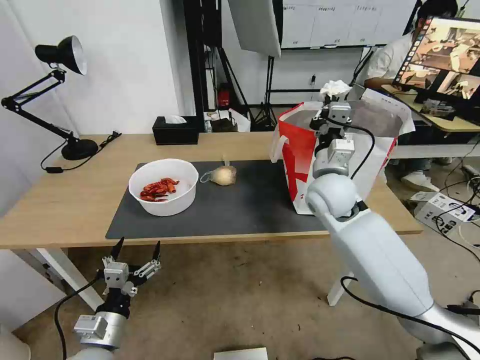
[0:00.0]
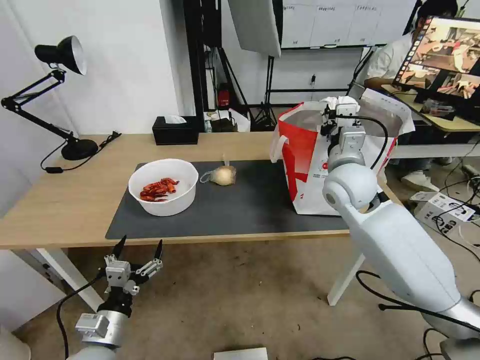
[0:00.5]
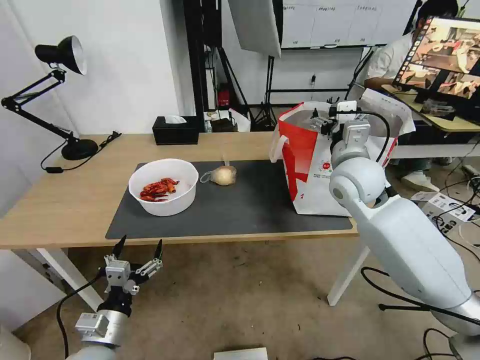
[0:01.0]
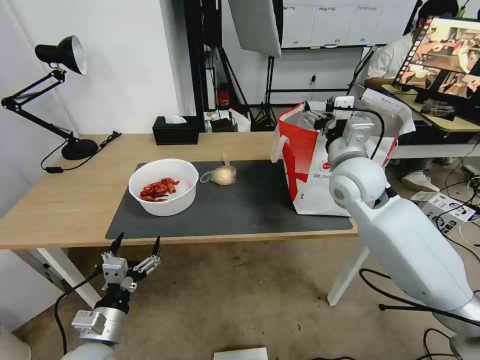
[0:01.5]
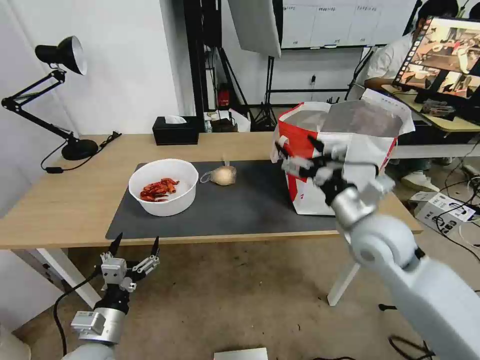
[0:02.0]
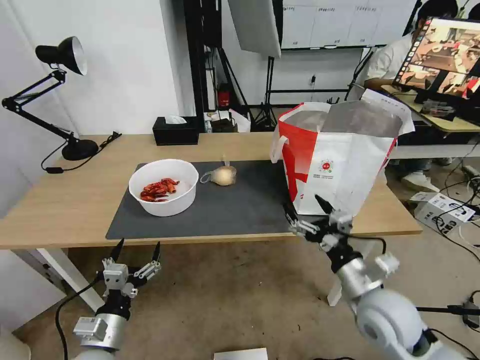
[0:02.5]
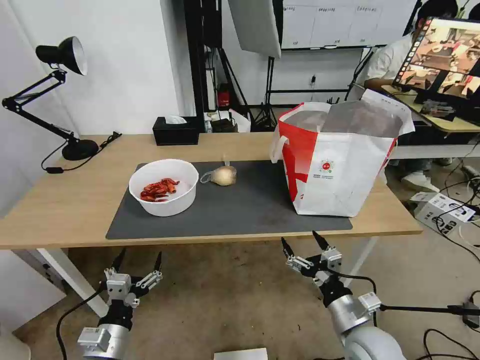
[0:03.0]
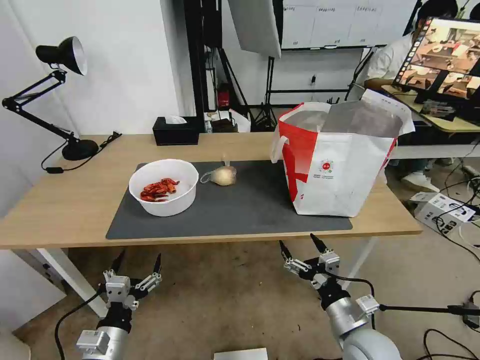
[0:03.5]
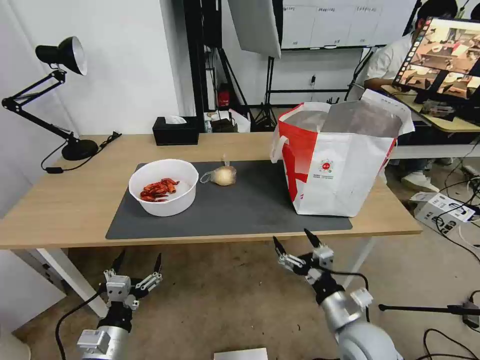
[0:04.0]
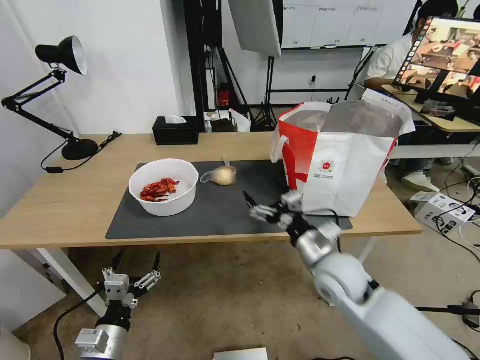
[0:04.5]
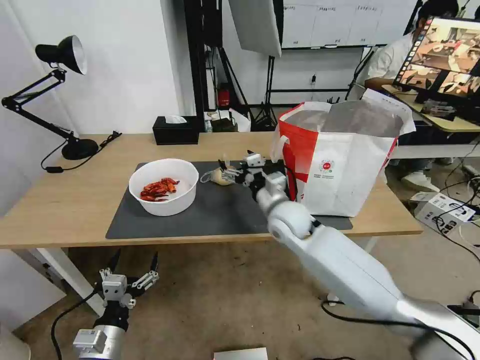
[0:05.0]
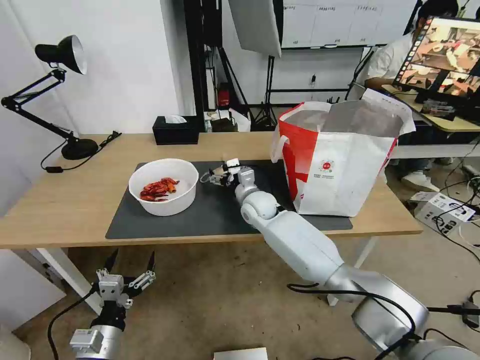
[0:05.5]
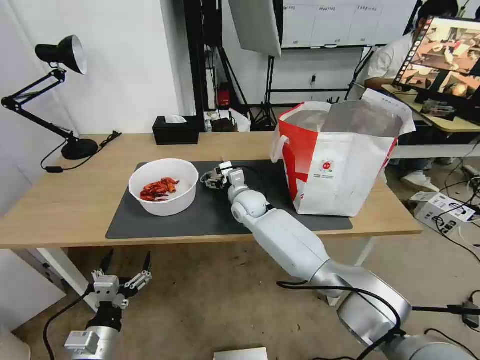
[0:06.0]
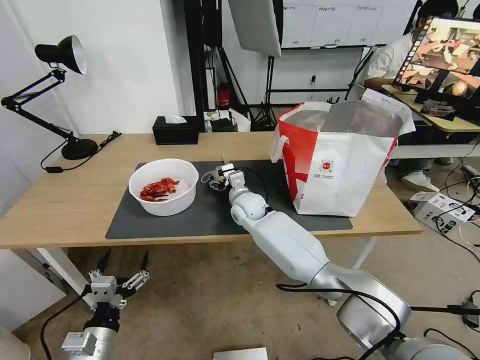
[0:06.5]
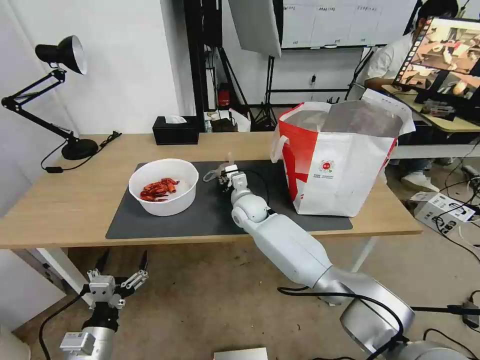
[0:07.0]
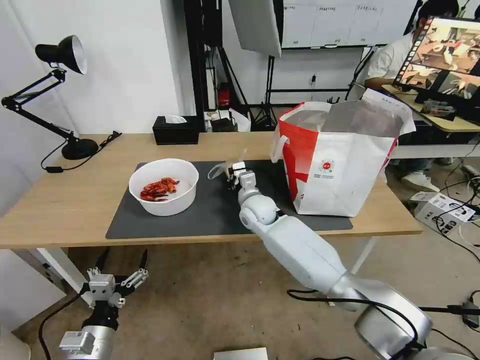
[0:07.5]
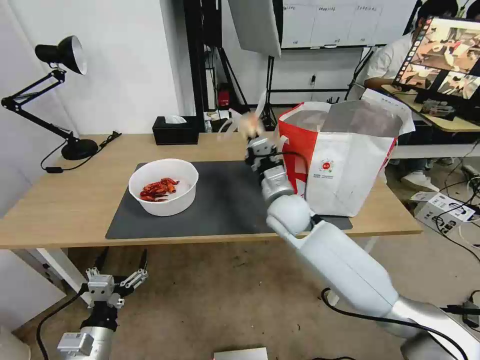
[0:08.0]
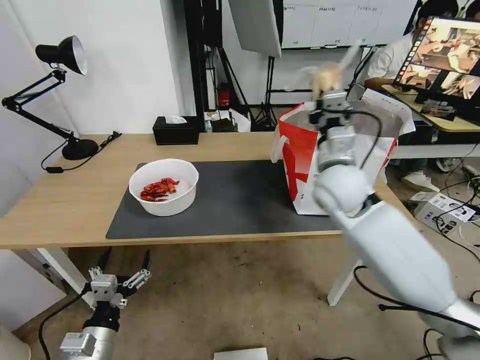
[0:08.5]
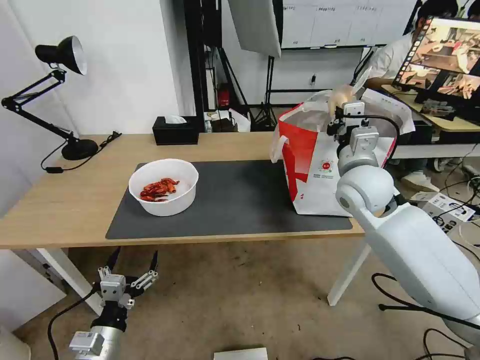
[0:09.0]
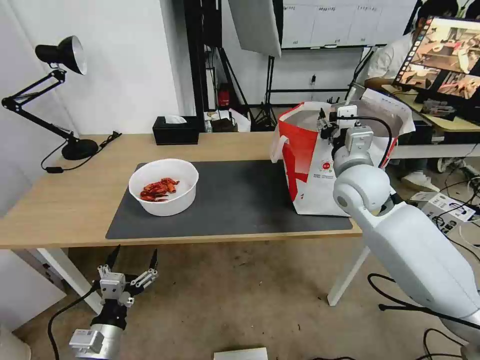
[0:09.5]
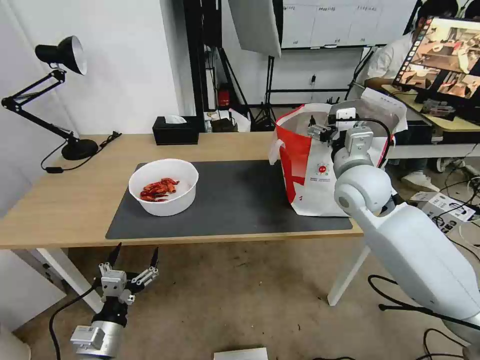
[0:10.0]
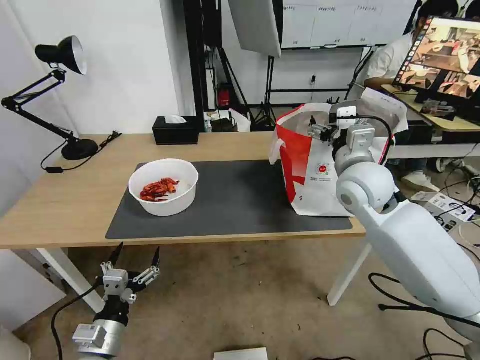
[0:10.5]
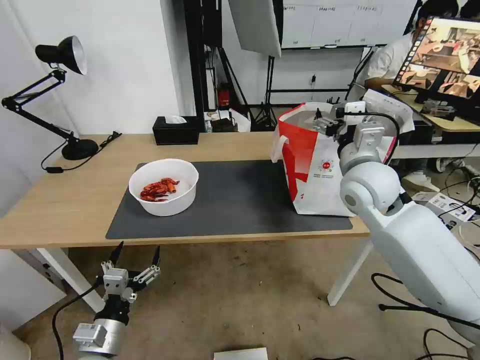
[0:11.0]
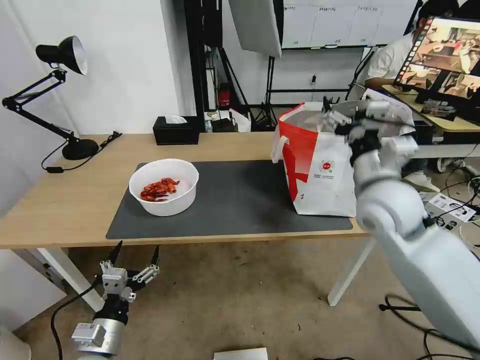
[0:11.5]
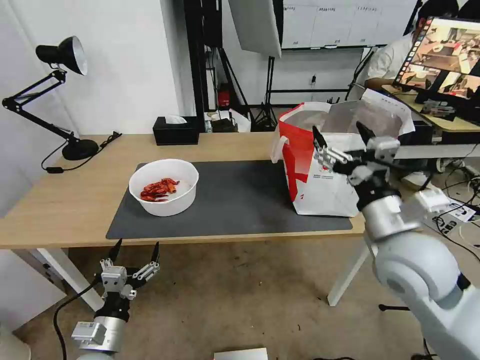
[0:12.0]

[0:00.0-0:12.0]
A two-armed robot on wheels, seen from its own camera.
Task of the whole recording: Pick up the trash from the table and place it into the takeout bag.
0:00.0 to 0:02.0: The right gripper shifts approximately 15 cm backward and to the right, and opens.
0:02.0 to 0:04.0: The right gripper is displaced downward and backward by about 25 cm.
0:04.0 to 0:06.0: The right gripper moves forward and to the left, about 40 cm.
0:06.0 to 0:08.0: The right gripper shifts some 15 cm backward, to the right and upward, and closes up.
0:08.0 to 0:10.0: The right gripper heads to the right and upward, covering roughly 15 cm, and opens.
0:10.0 to 0:12.0: The right gripper heads backward, covering some 15 cm.

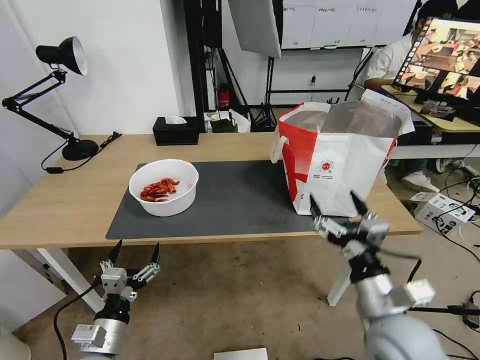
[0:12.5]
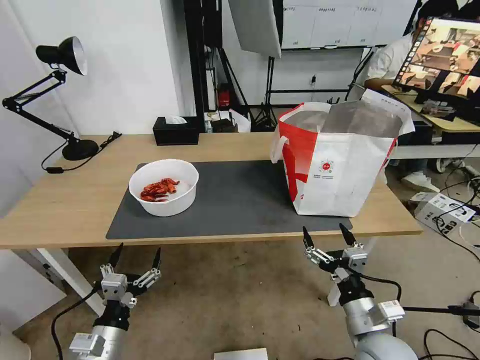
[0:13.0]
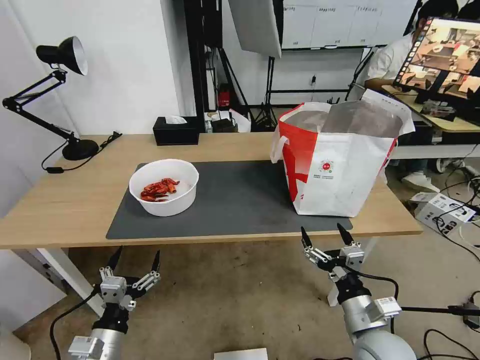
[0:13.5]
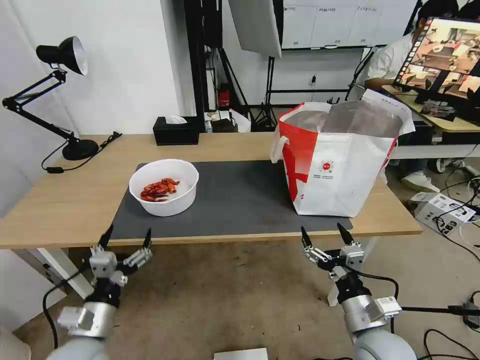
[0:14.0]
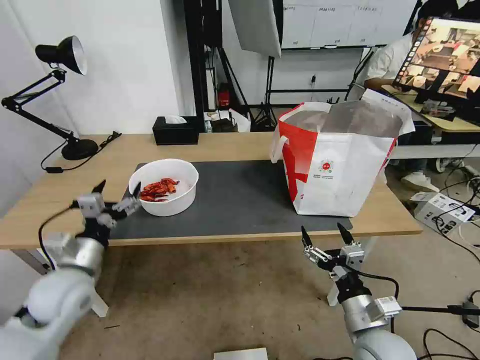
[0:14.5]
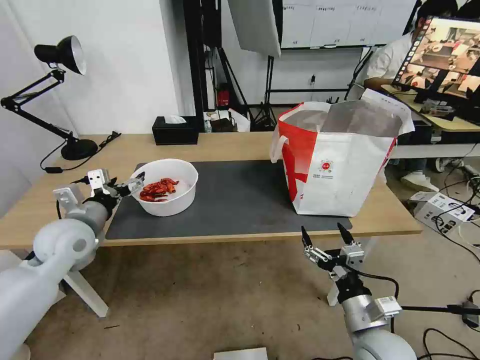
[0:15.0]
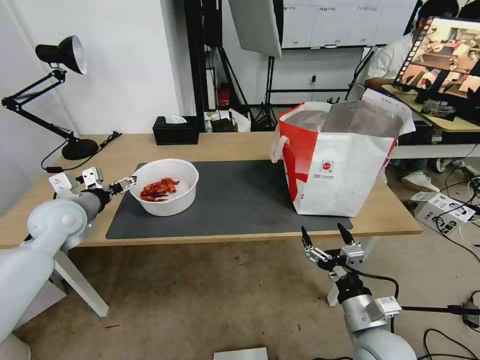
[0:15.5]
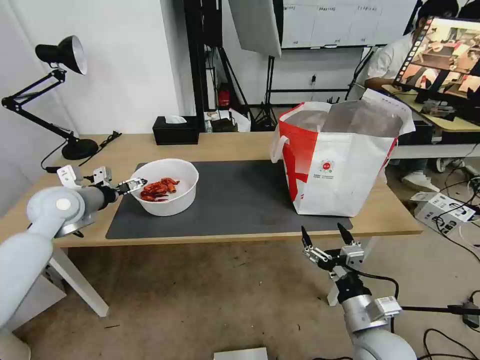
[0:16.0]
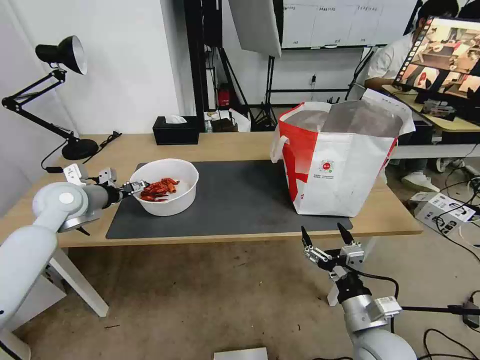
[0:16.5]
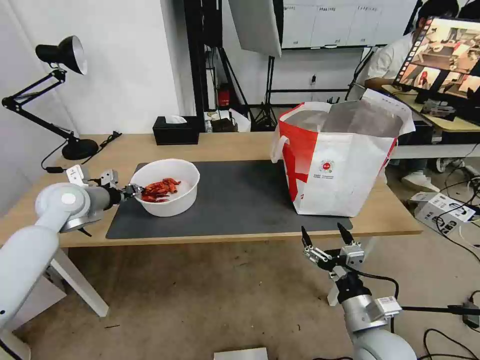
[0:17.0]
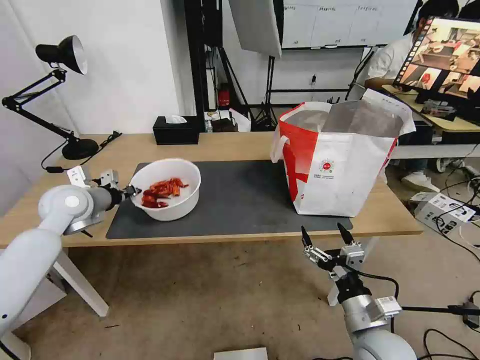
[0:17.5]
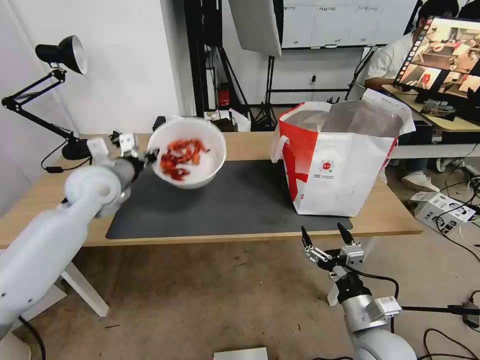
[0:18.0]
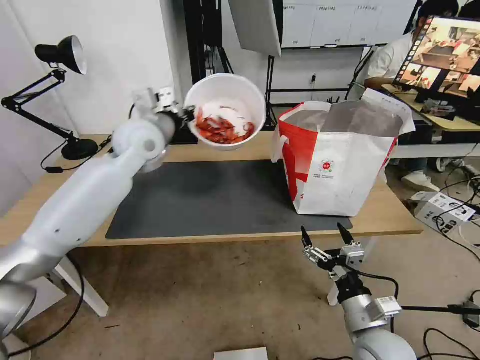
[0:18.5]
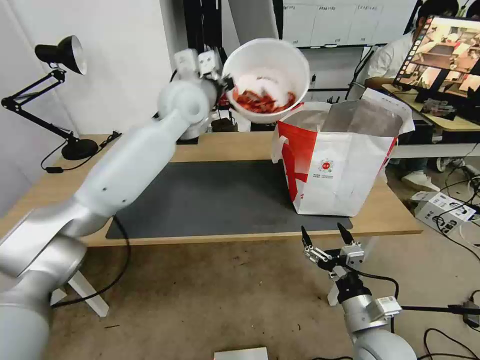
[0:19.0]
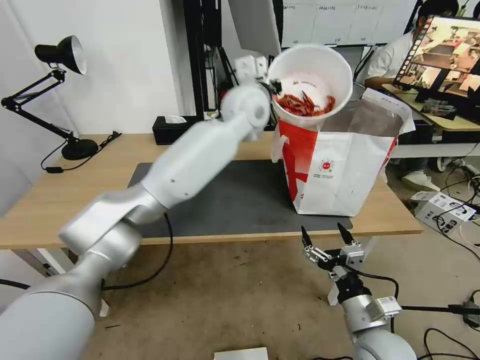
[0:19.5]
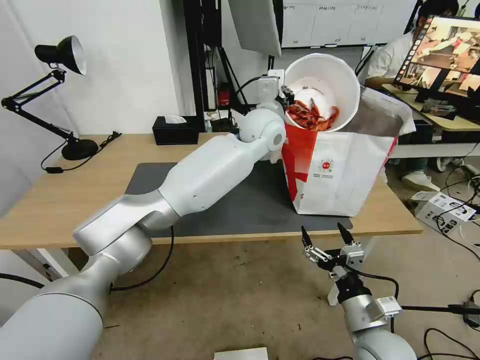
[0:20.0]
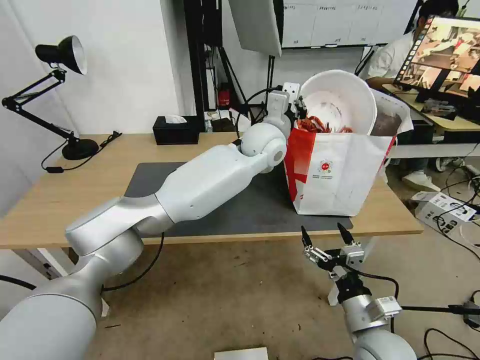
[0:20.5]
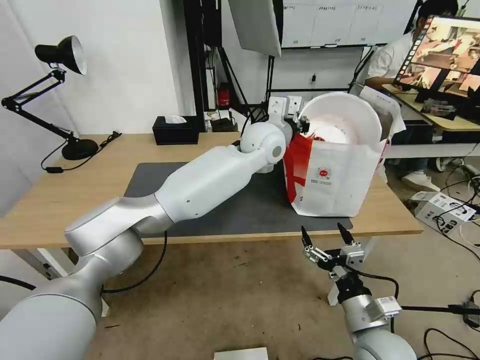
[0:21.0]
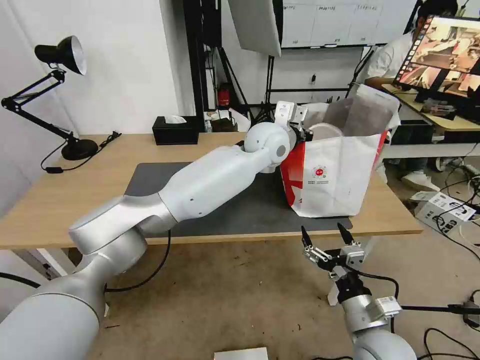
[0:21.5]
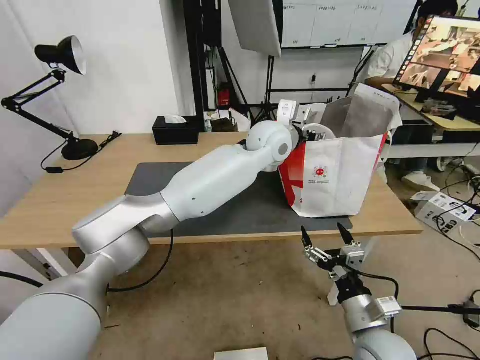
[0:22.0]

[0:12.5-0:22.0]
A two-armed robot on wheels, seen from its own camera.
Task of the whole recording: Pick up the trash from the table and place it into the takeout bag.
0:12.5 to 0:14.5: The right gripper shifts approximately 10 cm downward; the left gripper moves forward, upward and to the left, some 15 cm.
0:14.5 to 0:16.5: The left gripper shifts some 20 cm forward and upward.
0:16.5 to 0:18.0: The left gripper heads to the right, covering approximately 10 cm, and closes.
0:18.0 to 0:20.0: The left gripper is displaced to the right by approximately 35 cm.
0:20.0 to 0:22.0: The left gripper opens.

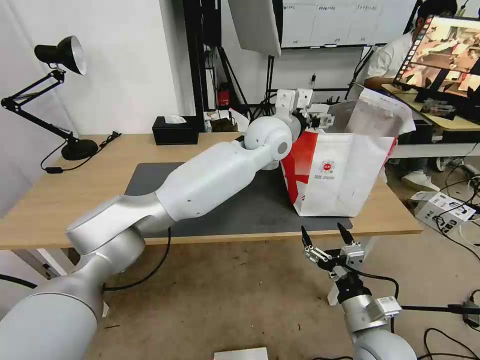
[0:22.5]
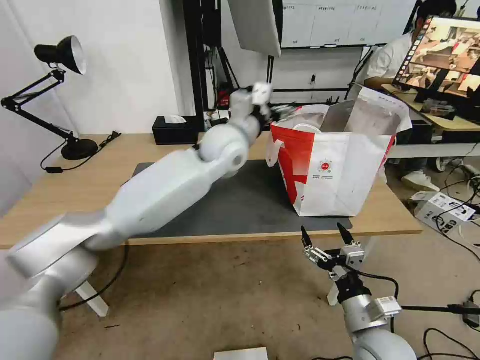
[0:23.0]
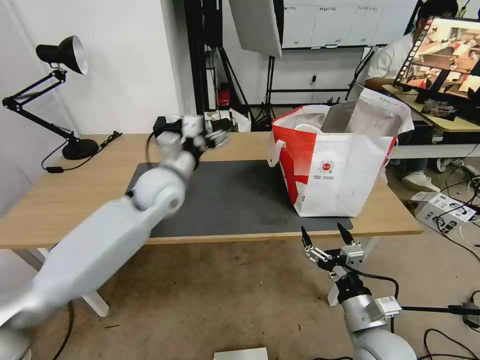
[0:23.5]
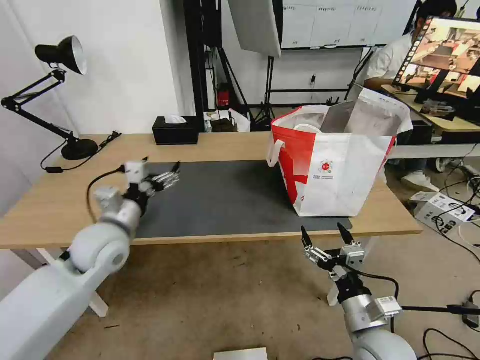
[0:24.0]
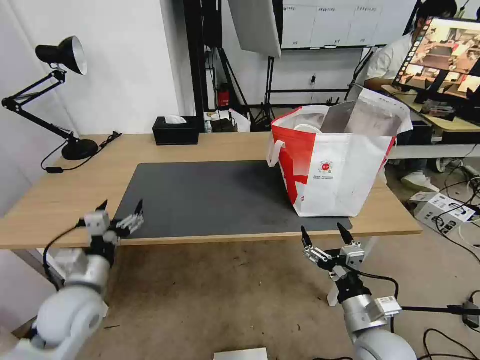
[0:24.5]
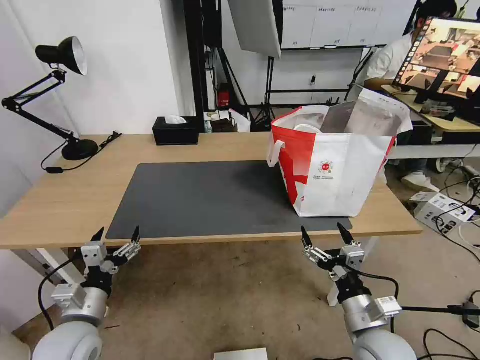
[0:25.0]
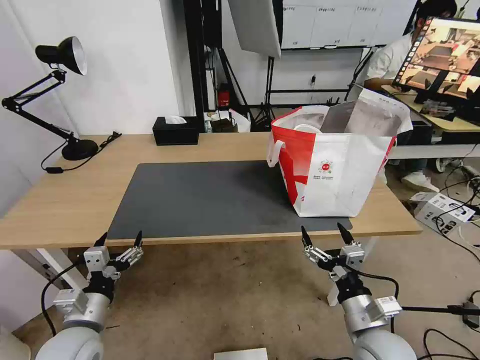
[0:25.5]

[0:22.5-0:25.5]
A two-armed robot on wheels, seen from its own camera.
Task of the whole recording: Pick up the trash from the table and place it into the takeout bag.
0:22.5 to 0:24.0: The left gripper moves to the left, backward and downward, some 40 cm.
0:24.0 to 0:25.5: The left gripper is displaced backward and downward by roughly 20 cm.

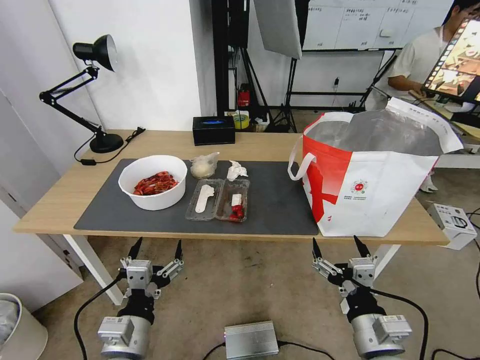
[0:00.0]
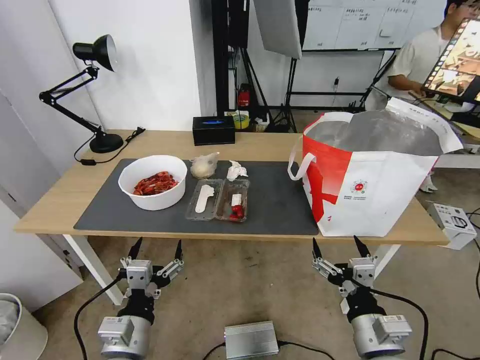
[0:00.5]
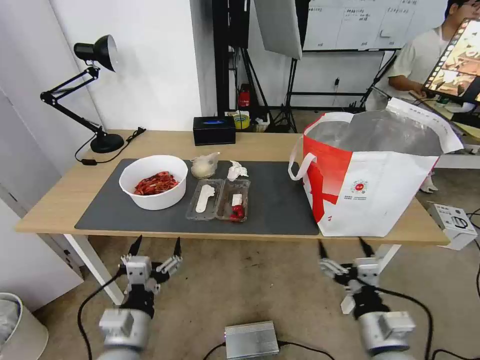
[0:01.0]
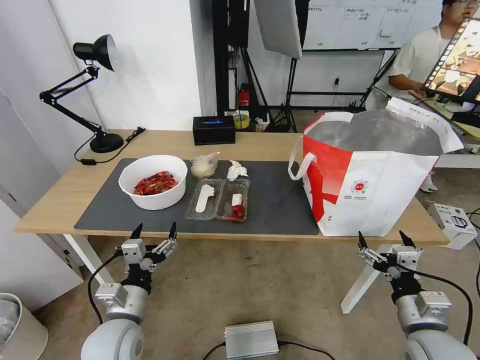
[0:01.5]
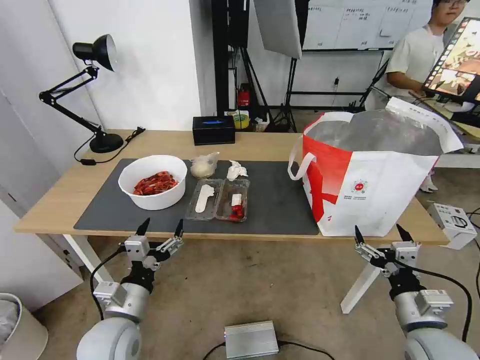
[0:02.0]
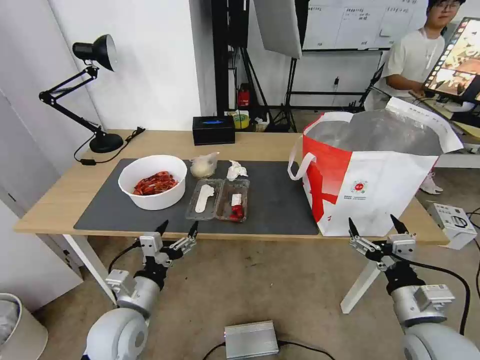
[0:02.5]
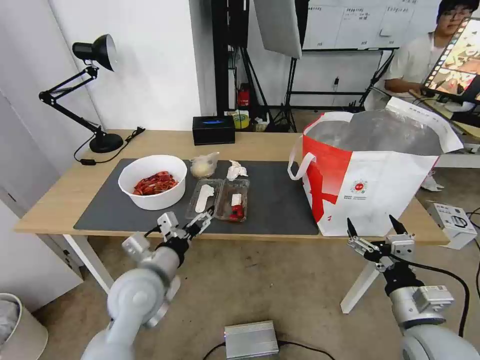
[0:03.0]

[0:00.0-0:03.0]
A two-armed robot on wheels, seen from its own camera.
Task of the whole recording: Pick up the trash from the table and place it into the takeout bag.
0:01.5 to 0:03.0: The left gripper goes about 10 cm upward and forward.
